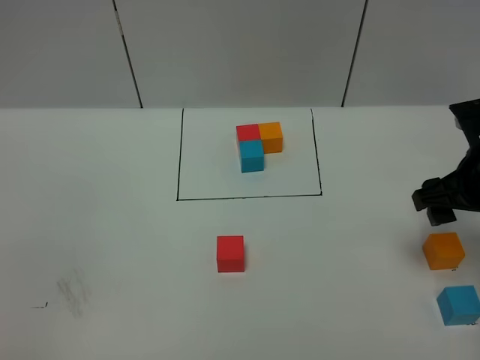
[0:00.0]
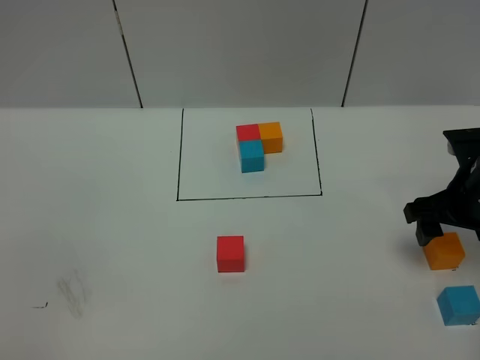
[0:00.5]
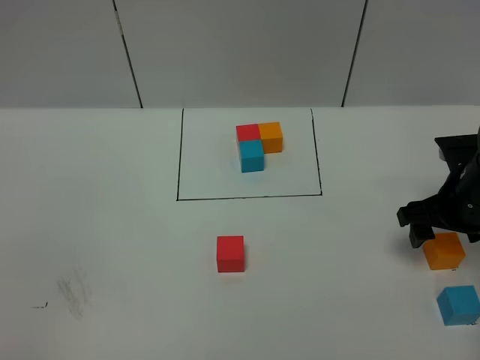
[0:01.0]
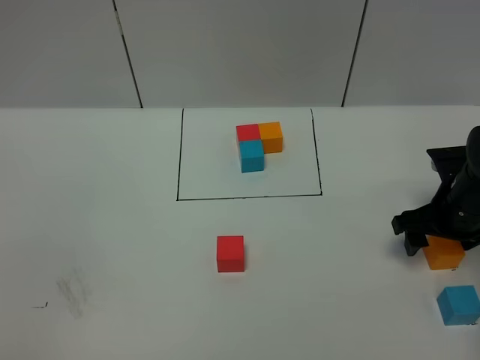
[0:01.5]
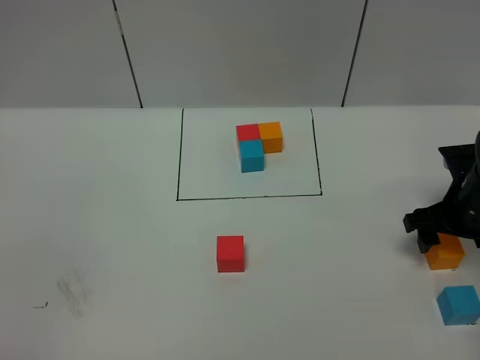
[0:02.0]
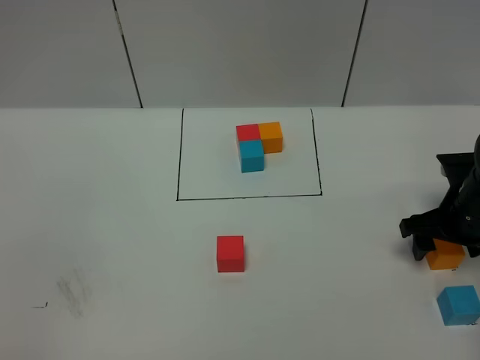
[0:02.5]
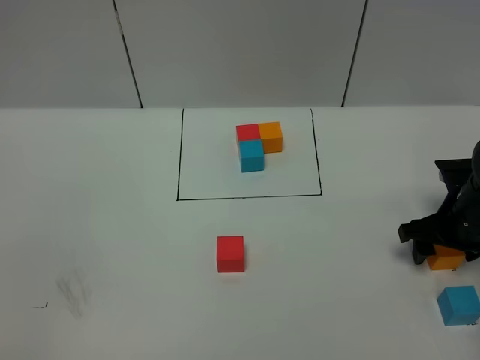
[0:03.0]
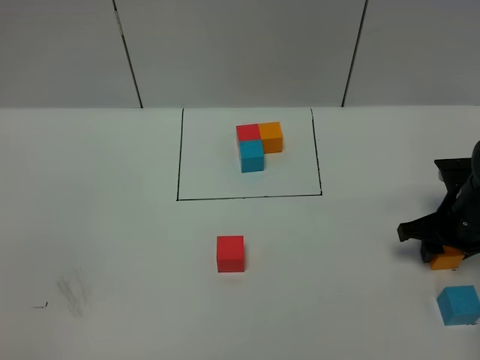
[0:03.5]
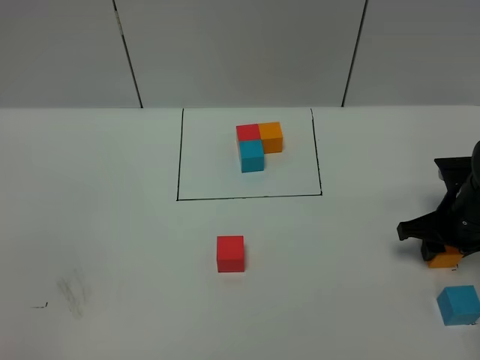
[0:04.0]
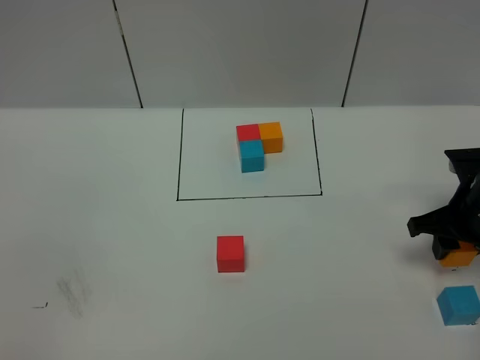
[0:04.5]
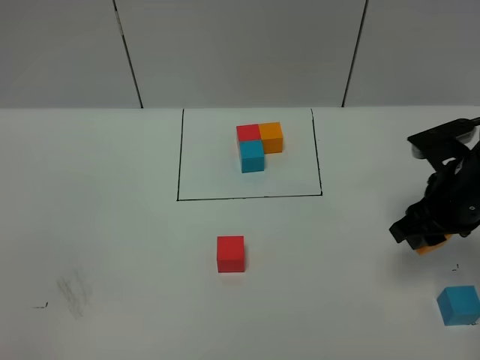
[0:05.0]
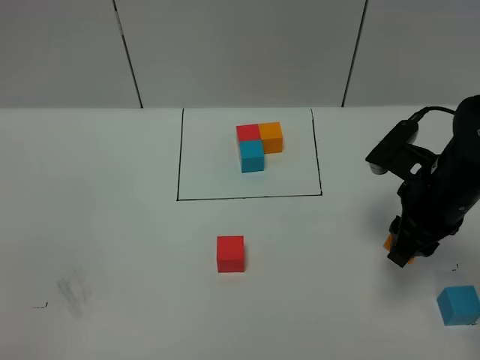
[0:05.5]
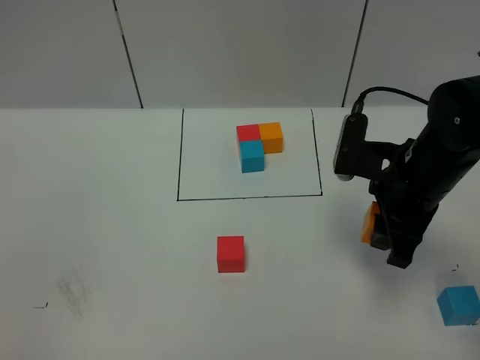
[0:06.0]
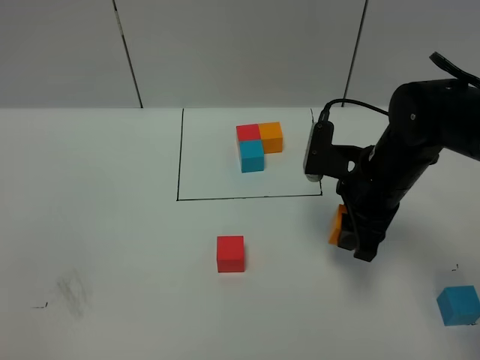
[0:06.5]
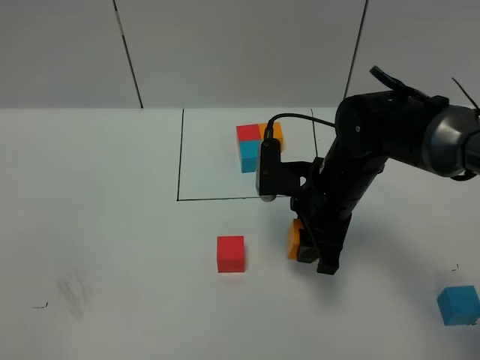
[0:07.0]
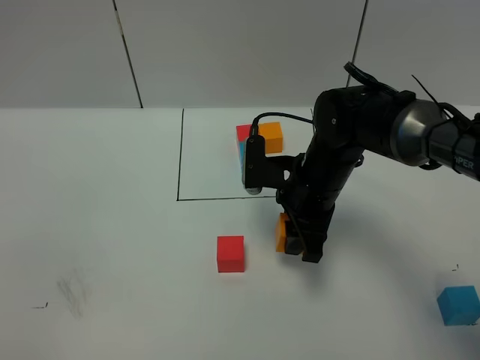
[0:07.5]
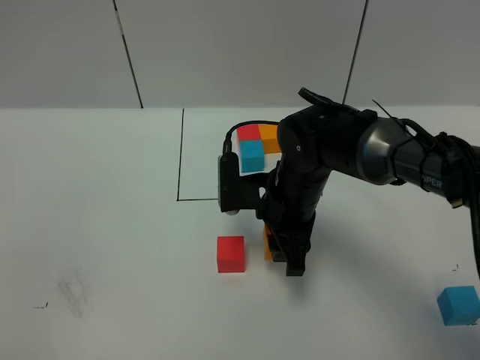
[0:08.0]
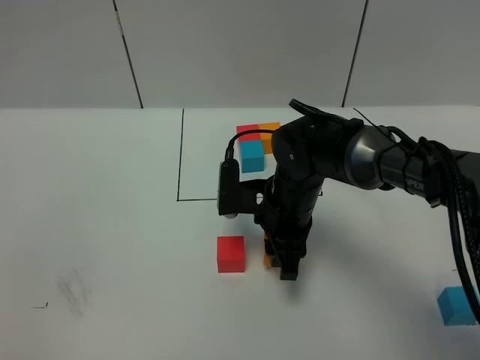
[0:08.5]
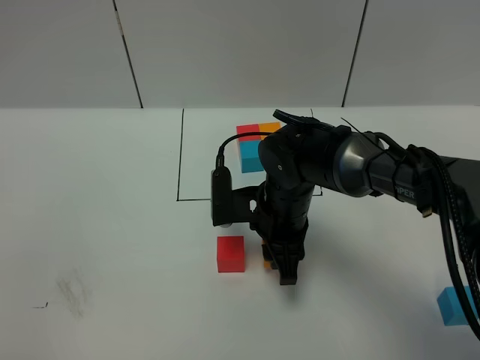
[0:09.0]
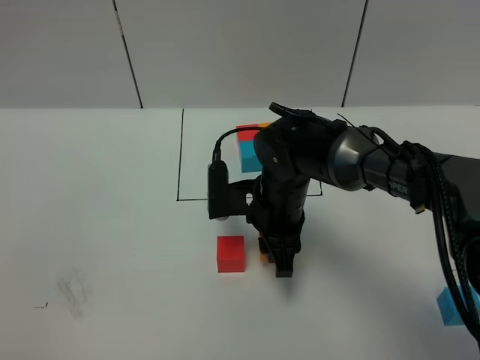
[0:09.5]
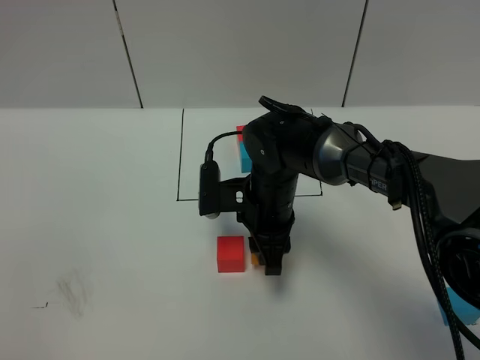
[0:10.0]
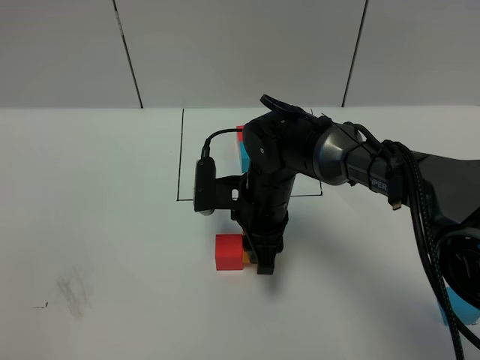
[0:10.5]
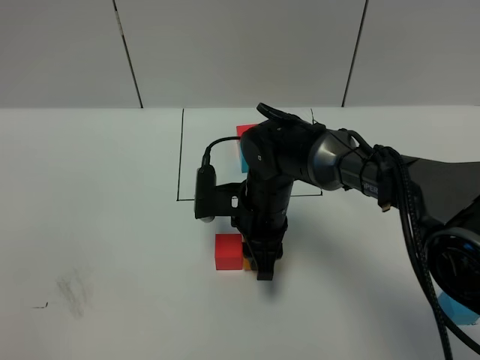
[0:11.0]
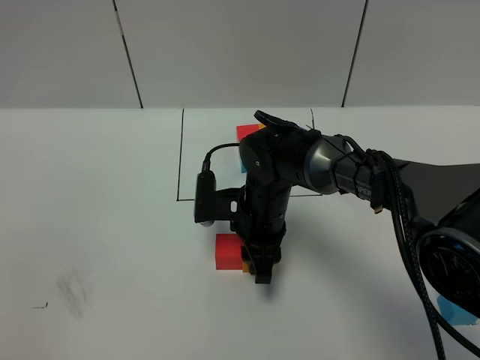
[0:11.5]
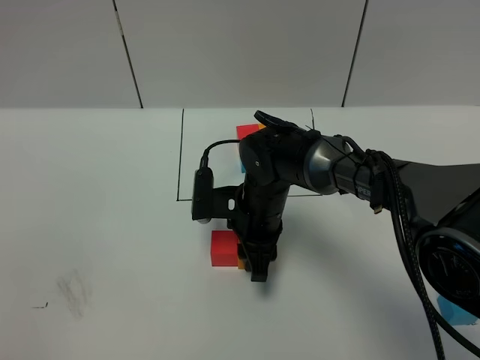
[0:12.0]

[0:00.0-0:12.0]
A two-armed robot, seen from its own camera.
Task of the whole recording: According to the building block template in front, assemble the scattered blocks together.
0:00.0 to 0:02.0: The right gripper goes approximately 10 cm downward.
0:02.0 to 0:04.0: The right gripper closes its fingers.
0:04.0 to 0:06.0: The right gripper is displaced upward and to the left by some 15 cm.
0:06.0 to 0:08.0: The right gripper goes some 15 cm to the left and downward.
0:08.0 to 0:10.0: The grippers make only small movements.
0:10.0 to 0:12.0: The grippers move only a little.

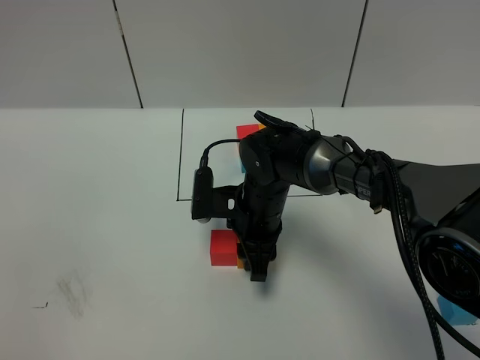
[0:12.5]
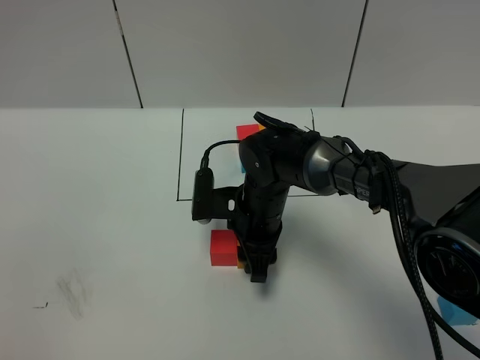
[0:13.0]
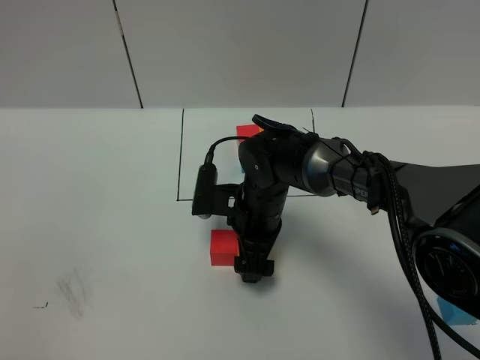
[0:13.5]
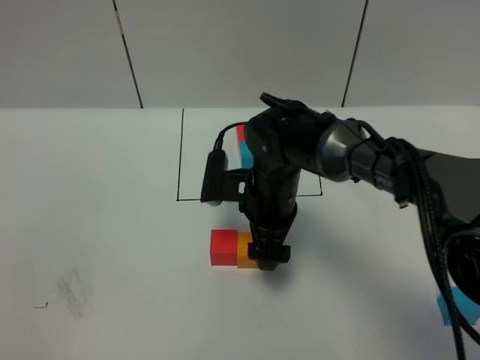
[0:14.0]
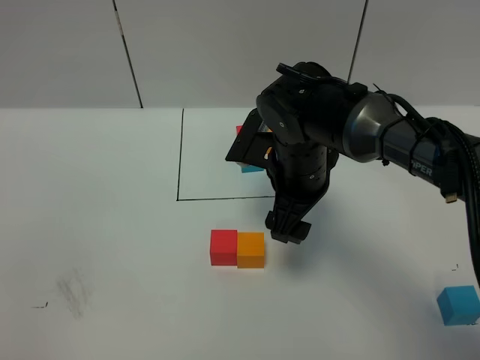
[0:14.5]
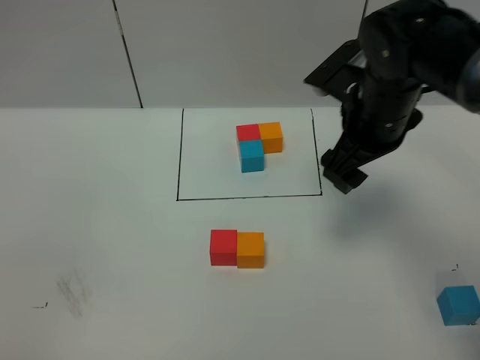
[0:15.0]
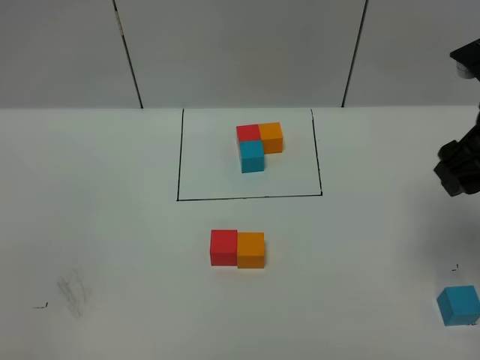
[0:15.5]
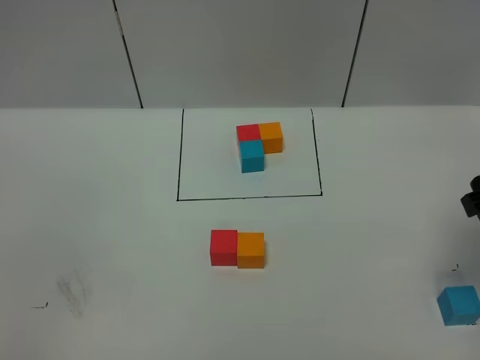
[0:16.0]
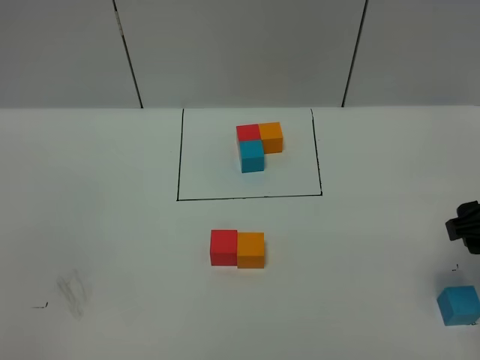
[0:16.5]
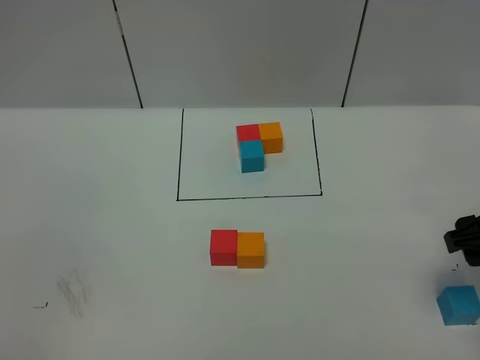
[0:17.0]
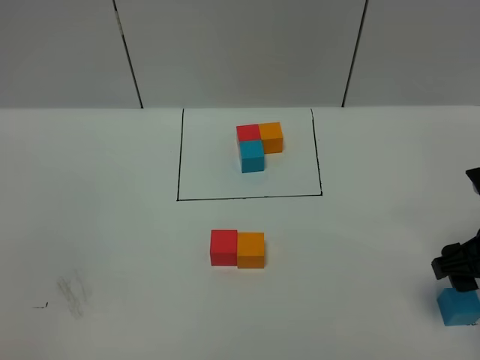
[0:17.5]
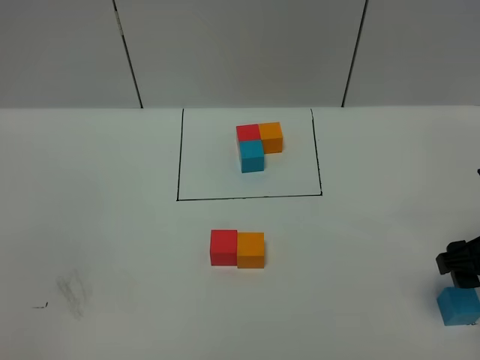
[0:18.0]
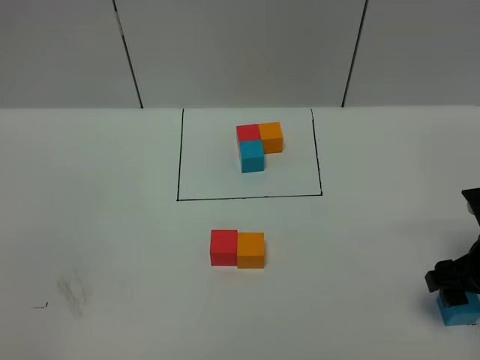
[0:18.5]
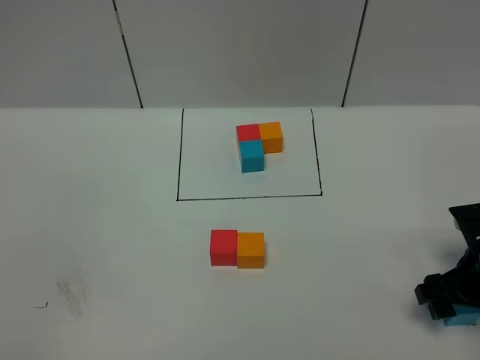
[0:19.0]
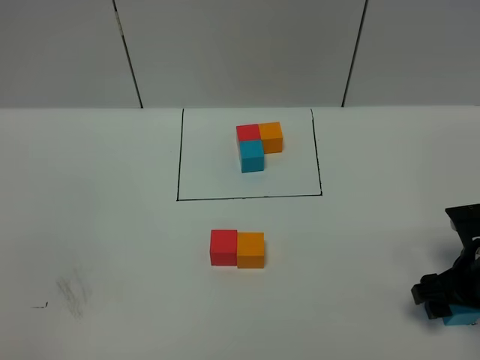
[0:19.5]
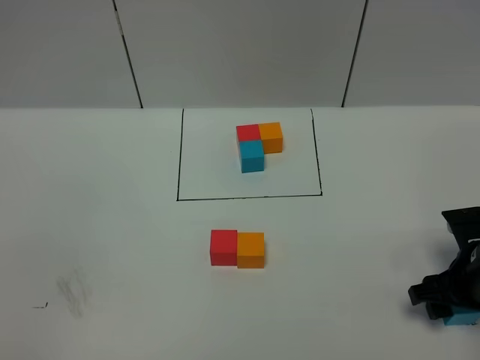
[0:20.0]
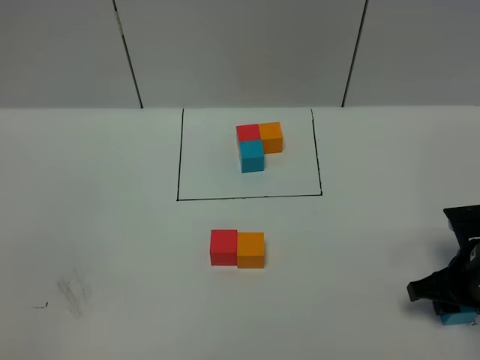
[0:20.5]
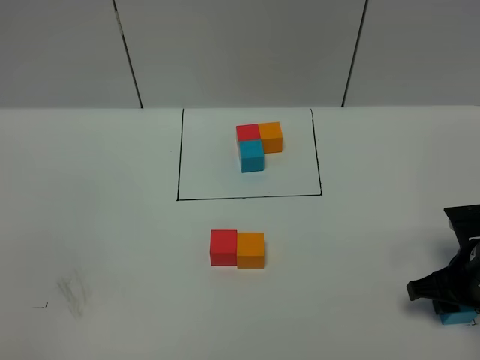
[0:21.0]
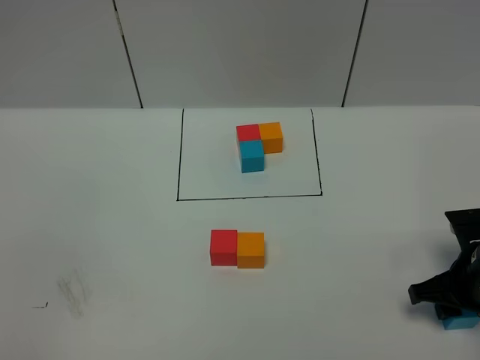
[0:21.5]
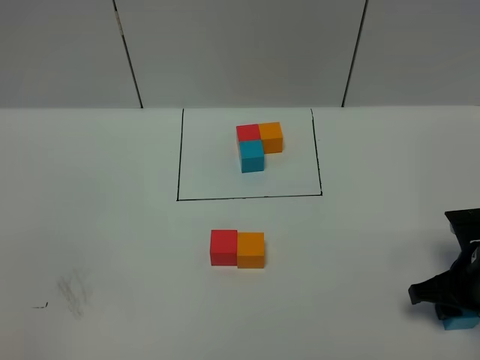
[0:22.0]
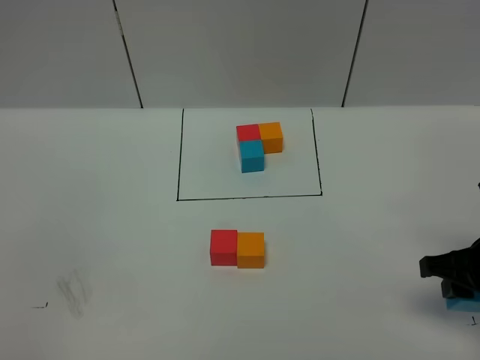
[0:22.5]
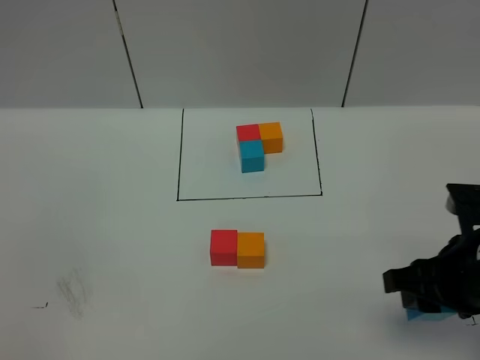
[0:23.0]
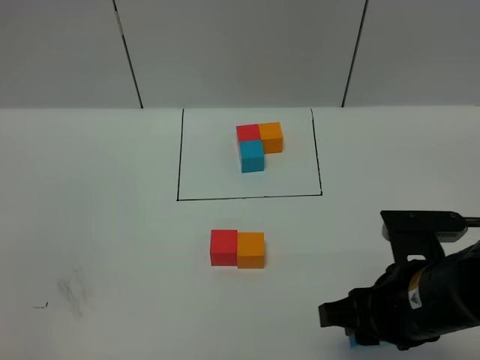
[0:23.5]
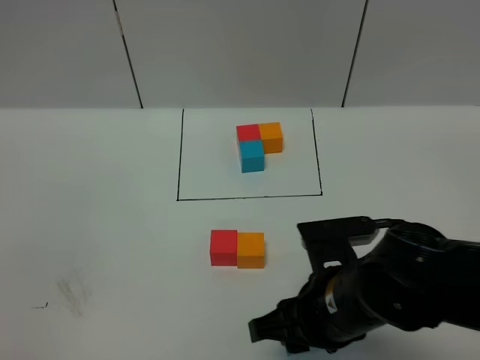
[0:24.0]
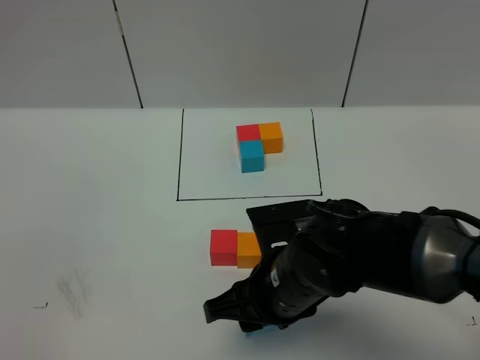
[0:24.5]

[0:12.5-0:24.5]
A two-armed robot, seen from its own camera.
Task of the whole recording: According to the building block template in front, assemble the scattered blocks together.
0:12.5 to 0:14.5: The right gripper heads upward, covering some 10 cm, and opens its fingers.
0:14.5 to 0:16.5: The right gripper travels to the right and backward by roughly 25 cm.
0:16.5 to 0:18.5: The right gripper heads downward, covering roughly 10 cm.
0:18.5 to 0:20.5: The right gripper closes its fingers.
0:20.5 to 0:22.5: The right gripper moves upward, about 5 cm.
0:22.5 to 0:24.5: The right gripper moves to the left, some 25 cm.

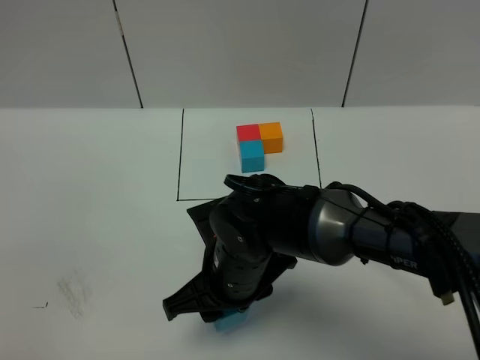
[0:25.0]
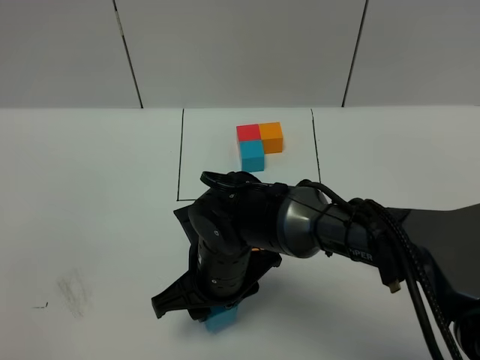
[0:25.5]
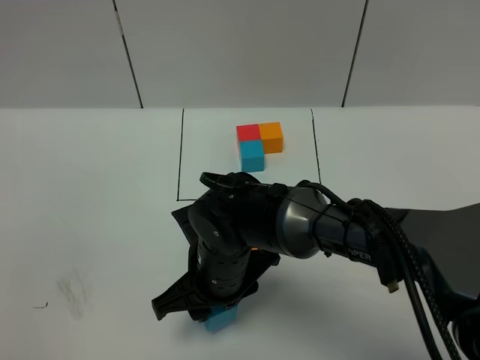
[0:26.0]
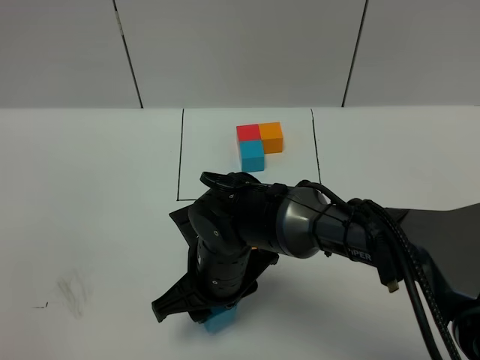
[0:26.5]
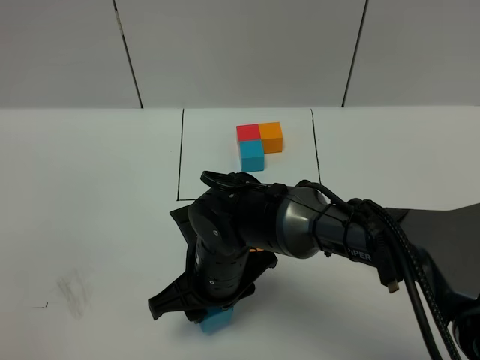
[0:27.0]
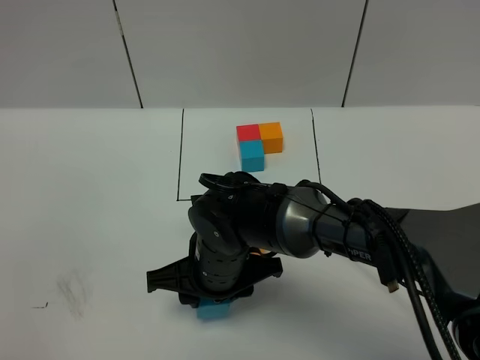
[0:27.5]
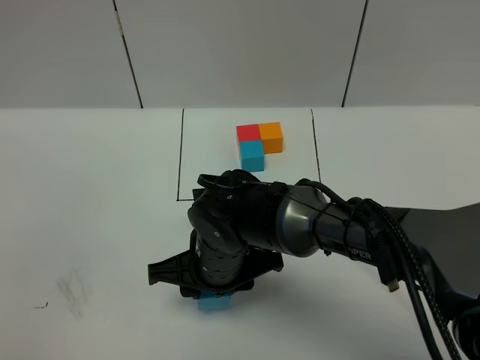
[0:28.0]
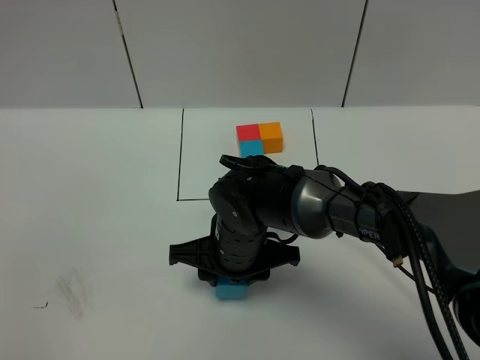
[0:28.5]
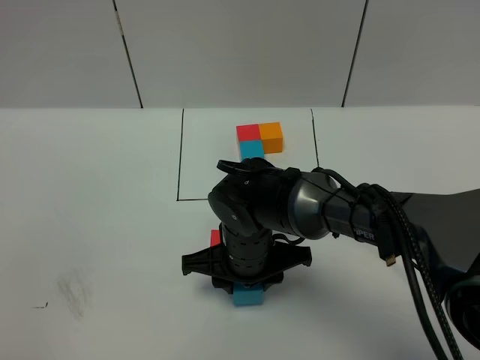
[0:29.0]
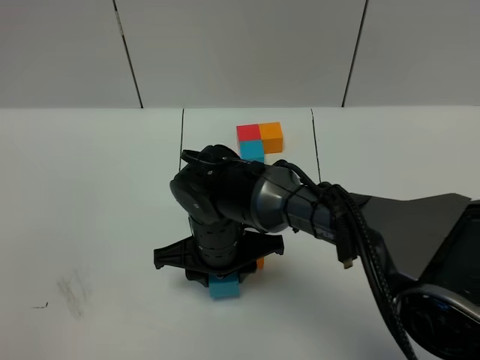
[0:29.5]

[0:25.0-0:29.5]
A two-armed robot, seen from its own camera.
Task of the whole recording: According to the building block template in front, assemble the scattered blocks together.
0:25.0 to 0:27.0: The grippers move only a little.
